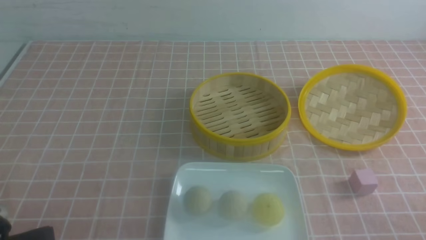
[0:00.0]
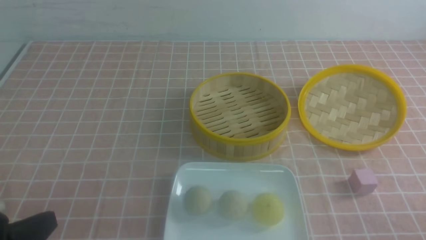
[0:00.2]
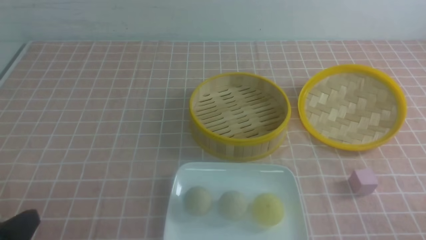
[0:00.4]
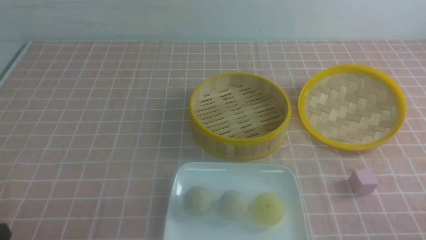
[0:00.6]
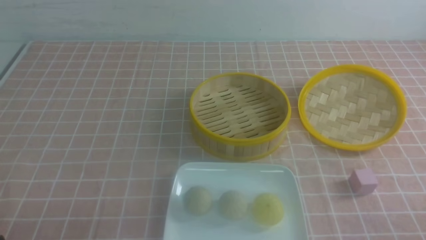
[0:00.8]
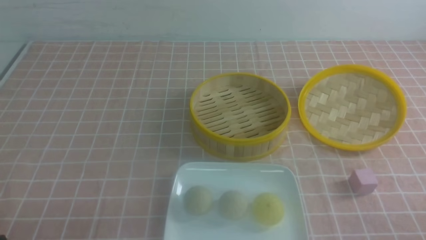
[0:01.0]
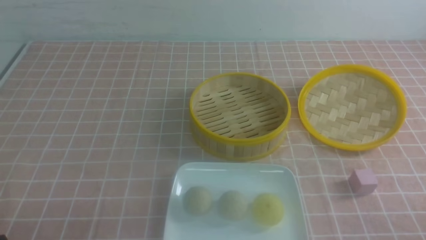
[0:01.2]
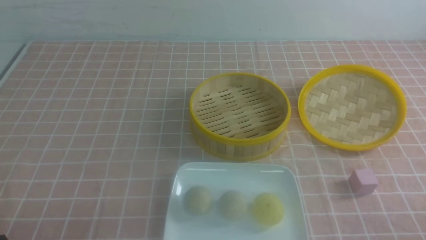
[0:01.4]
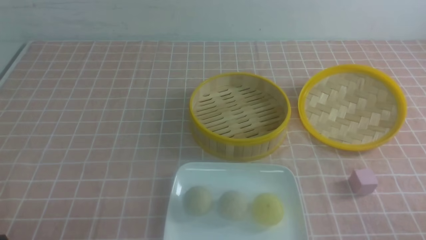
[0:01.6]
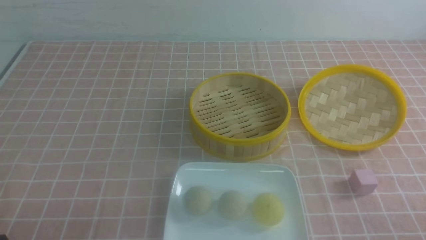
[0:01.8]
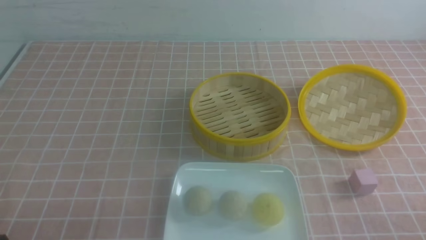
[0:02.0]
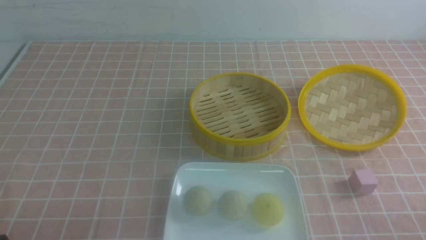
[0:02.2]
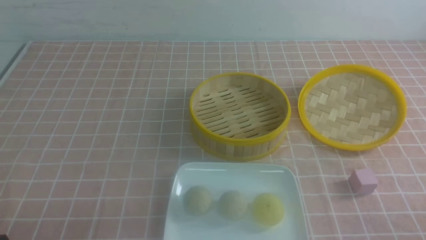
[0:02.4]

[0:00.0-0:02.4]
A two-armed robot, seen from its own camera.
0:01.2 to 0:02.4: Both grippers stay about where they are.
